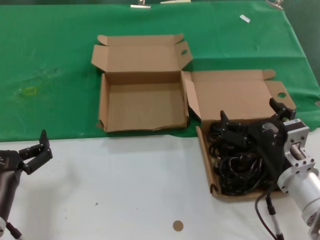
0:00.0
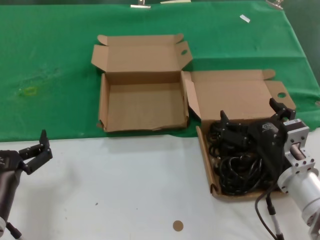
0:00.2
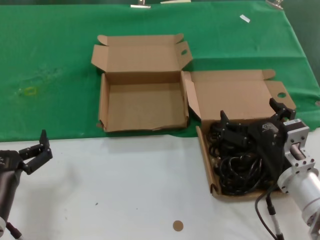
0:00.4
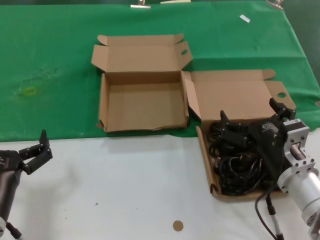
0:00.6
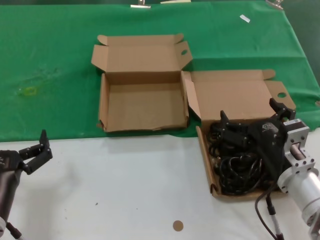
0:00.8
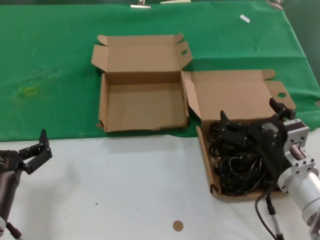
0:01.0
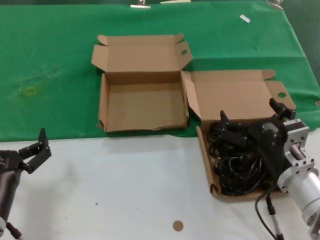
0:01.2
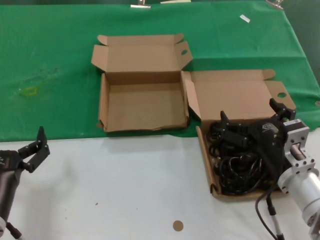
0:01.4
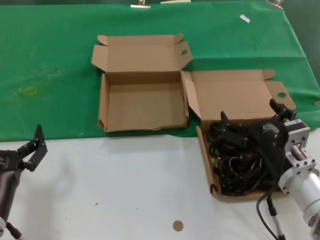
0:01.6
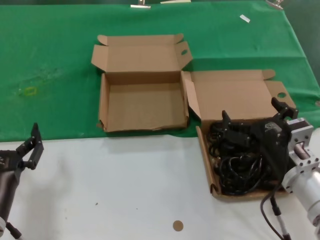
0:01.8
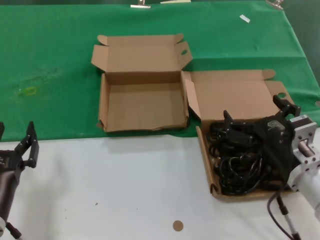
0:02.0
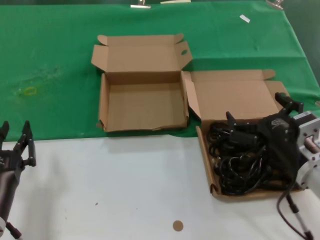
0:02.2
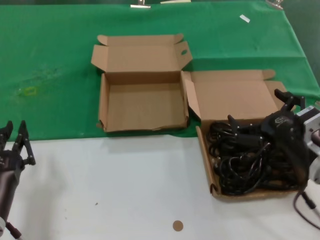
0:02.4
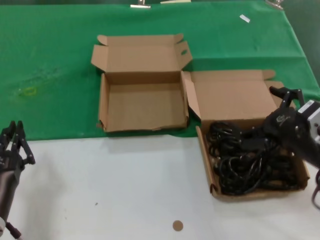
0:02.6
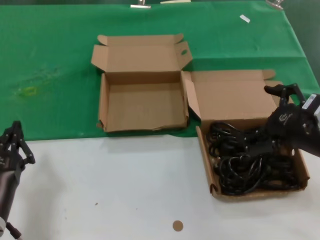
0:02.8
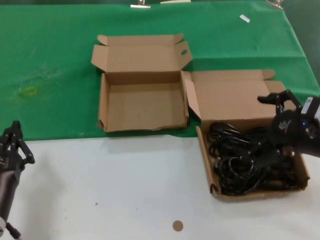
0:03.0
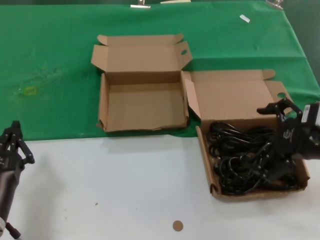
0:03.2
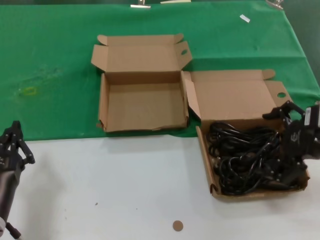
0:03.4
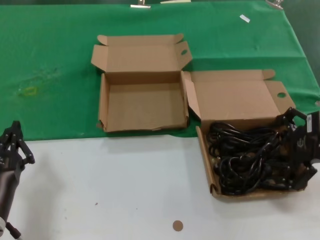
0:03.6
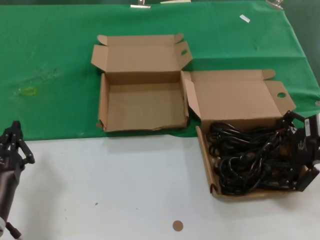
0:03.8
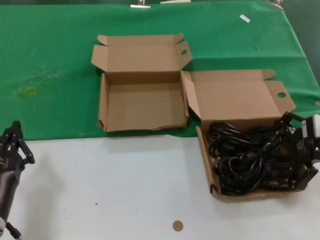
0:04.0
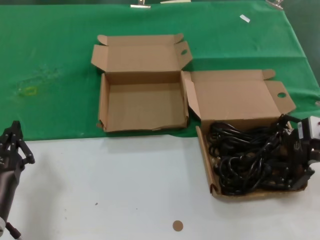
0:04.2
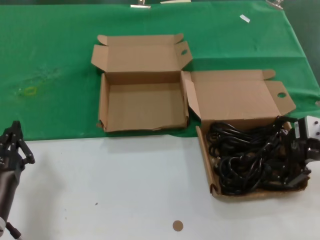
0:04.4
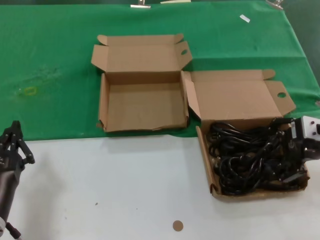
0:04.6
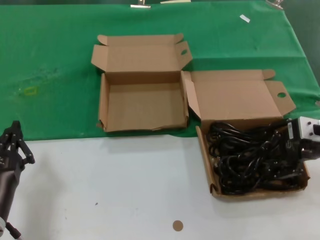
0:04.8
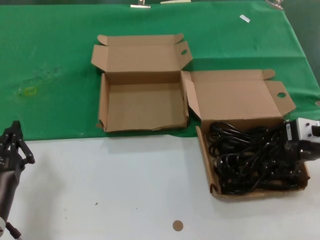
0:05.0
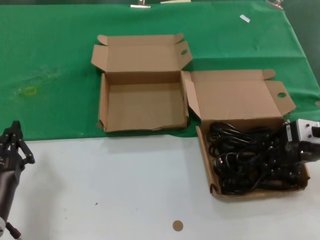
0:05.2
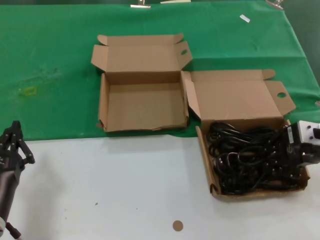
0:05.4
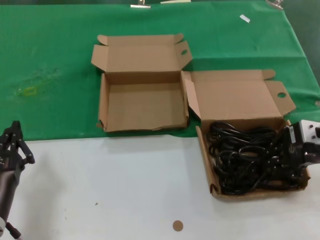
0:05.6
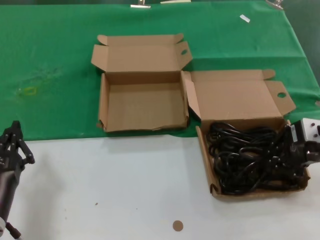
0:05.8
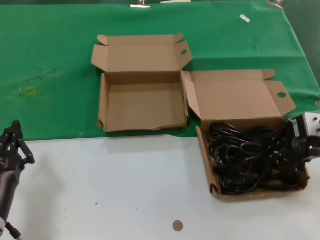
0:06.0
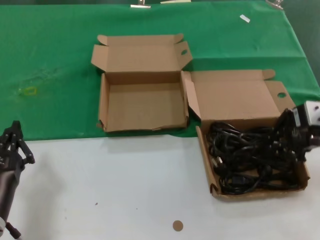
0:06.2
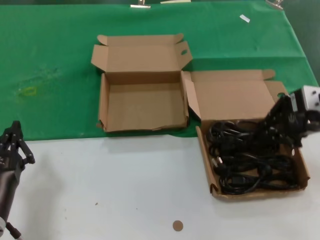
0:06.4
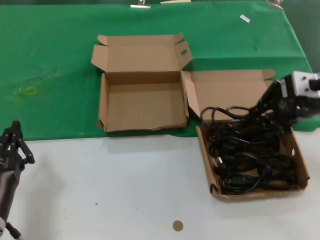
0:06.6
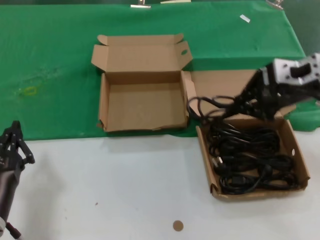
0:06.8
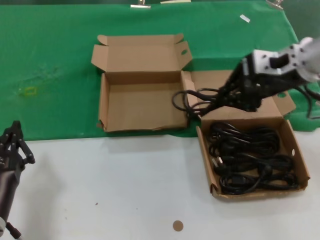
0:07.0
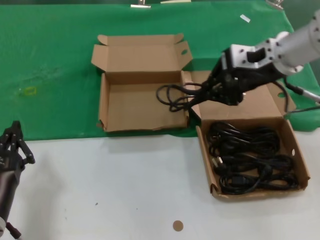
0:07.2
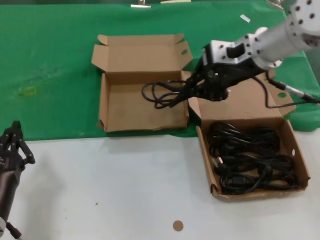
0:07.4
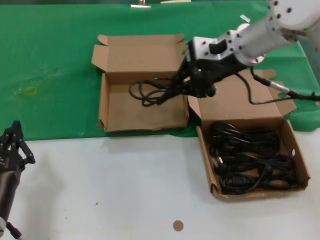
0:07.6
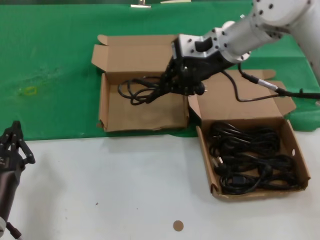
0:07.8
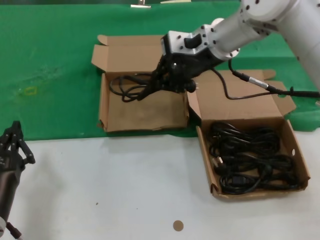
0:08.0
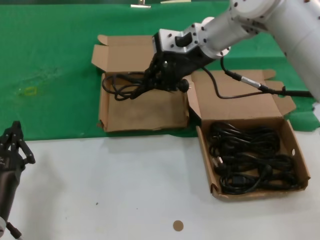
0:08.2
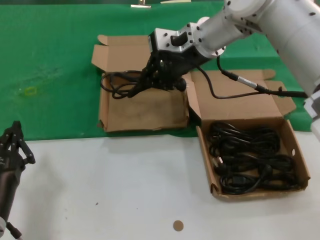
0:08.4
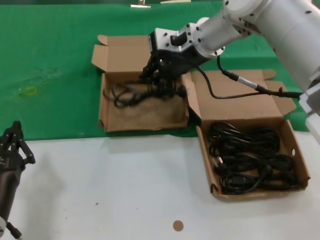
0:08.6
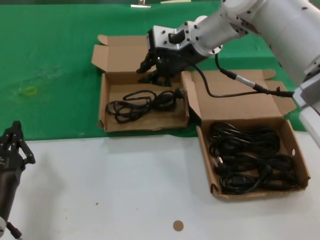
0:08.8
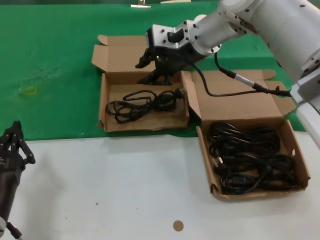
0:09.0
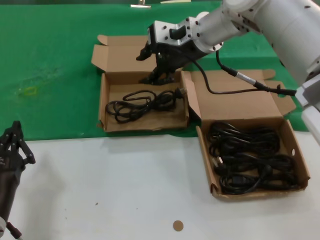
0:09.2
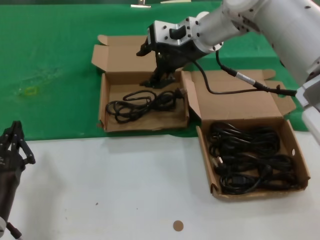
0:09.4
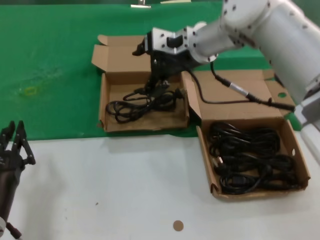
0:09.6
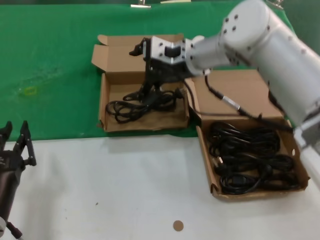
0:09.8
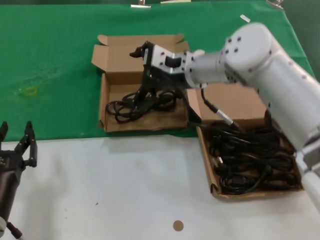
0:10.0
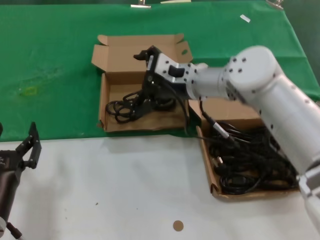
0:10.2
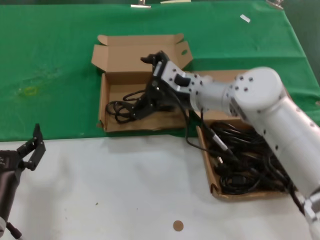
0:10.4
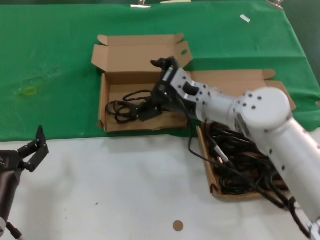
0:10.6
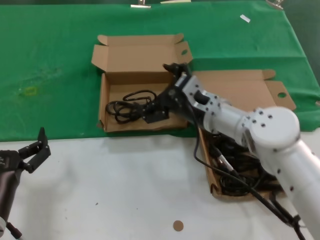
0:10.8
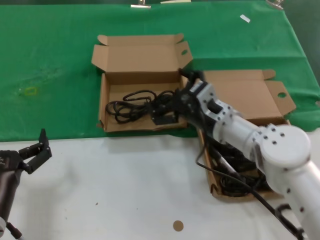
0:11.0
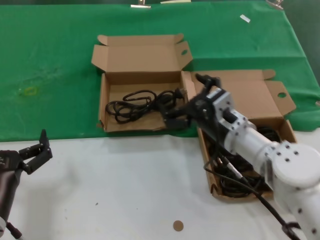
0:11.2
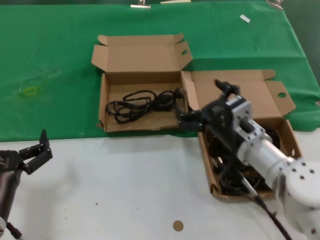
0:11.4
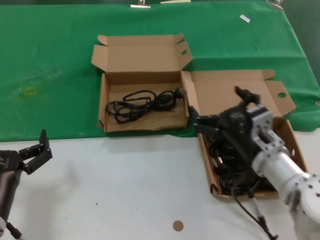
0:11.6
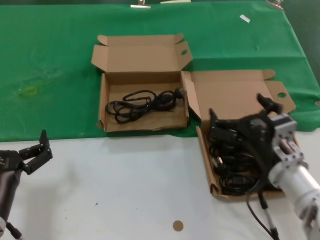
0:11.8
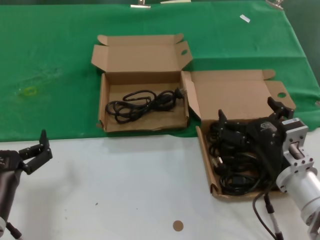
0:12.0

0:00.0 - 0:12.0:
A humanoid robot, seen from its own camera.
Task of the whole recording: take the parts from the box containing them and put them into an empty box.
Step, 0:00.0 - 0:05.6: Grasp the data cable.
Step, 0:05.8 - 0:08.8: Place the data cable in the another box.
0:00.0 - 0:01.6: Both hands stay about where they are.
0:01.6 - 0:03.0: The right hand goes about 15 cm upward and to the right.
0:03.0 - 0:04.4: The right hand moves forward, approximately 5 cm.
0:04.4 - 0:06.0: The hands move only a little.
0:06.0 - 0:07.6: The right hand shifts about 20 cm to the left, forward and upward.
0:07.6 - 0:09.0: The right hand goes approximately 10 cm to the left and forward.
0:09.0 - 0:10.4: The right hand heads downward, covering about 15 cm.
0:10.4 - 0:12.0: The right hand is displaced backward, downward and to the right by some 25 cm.

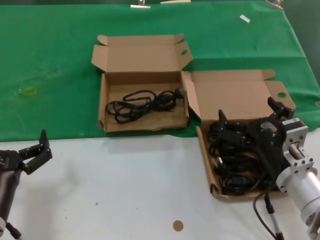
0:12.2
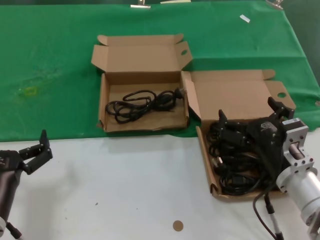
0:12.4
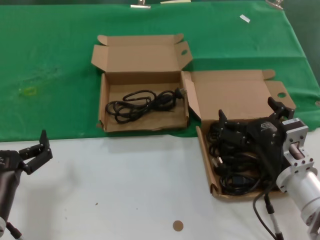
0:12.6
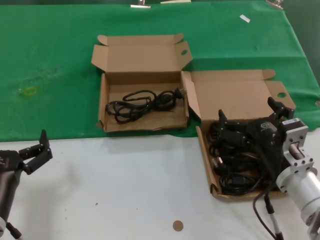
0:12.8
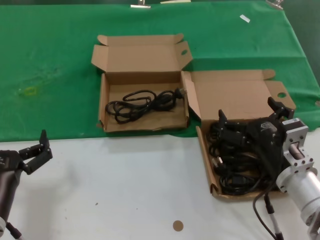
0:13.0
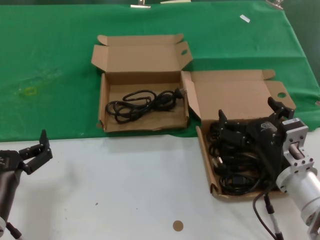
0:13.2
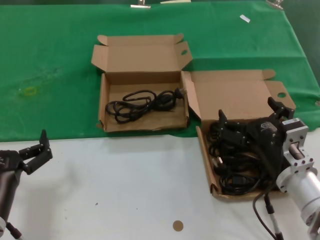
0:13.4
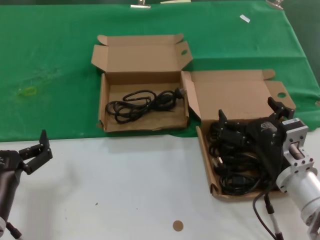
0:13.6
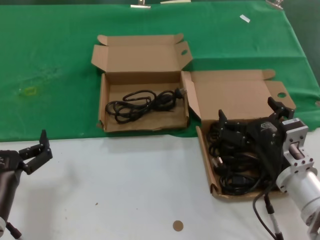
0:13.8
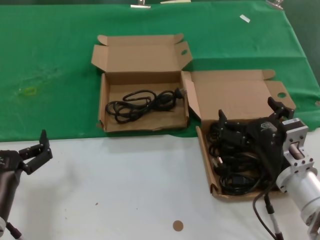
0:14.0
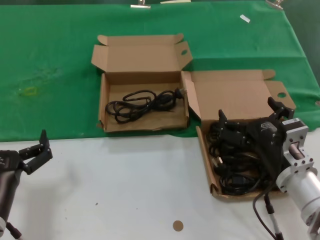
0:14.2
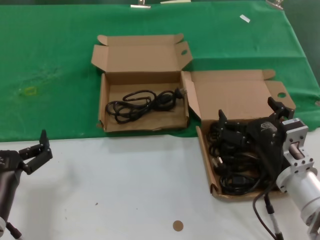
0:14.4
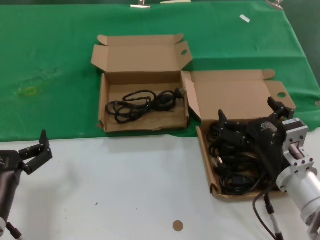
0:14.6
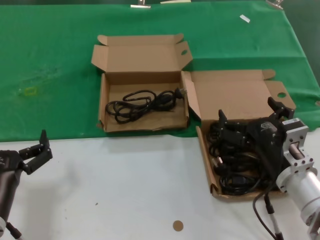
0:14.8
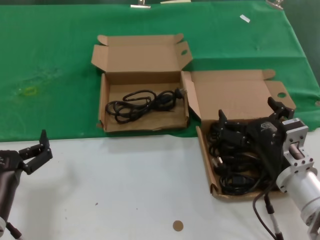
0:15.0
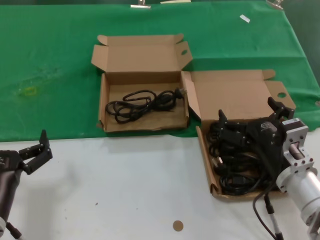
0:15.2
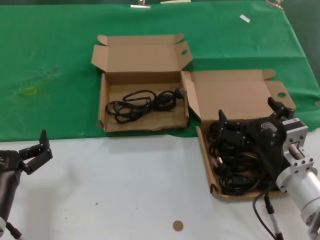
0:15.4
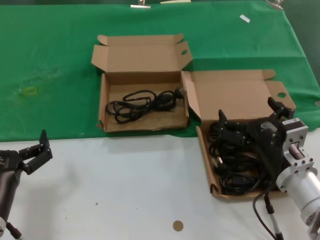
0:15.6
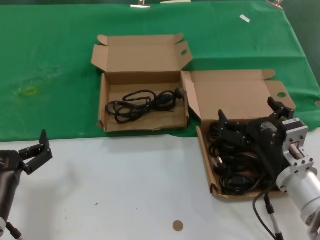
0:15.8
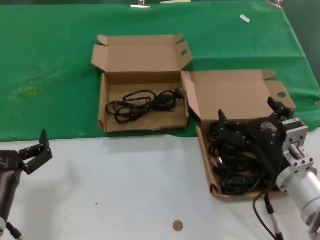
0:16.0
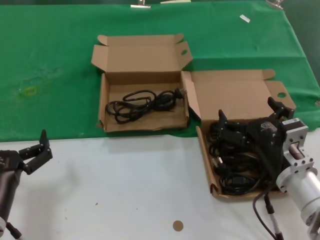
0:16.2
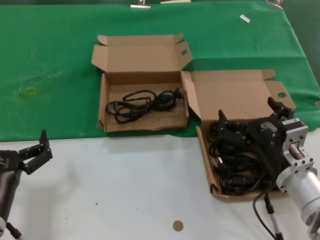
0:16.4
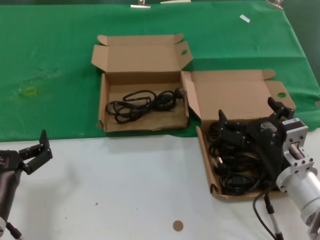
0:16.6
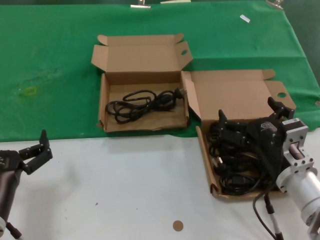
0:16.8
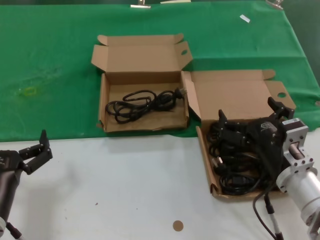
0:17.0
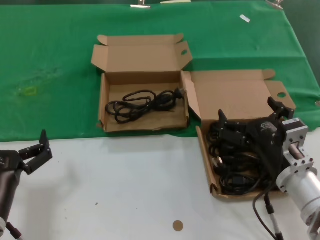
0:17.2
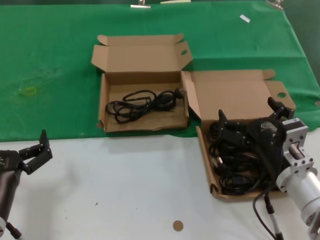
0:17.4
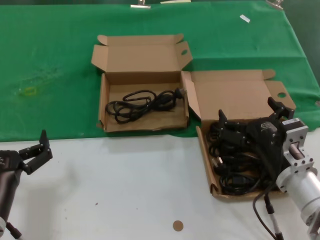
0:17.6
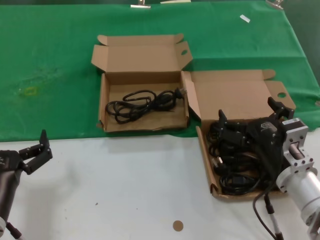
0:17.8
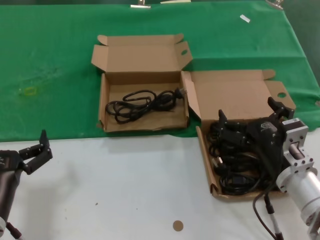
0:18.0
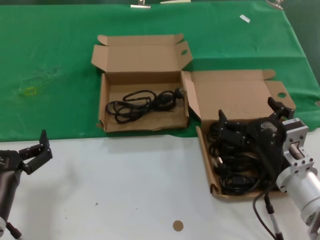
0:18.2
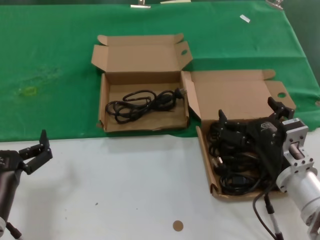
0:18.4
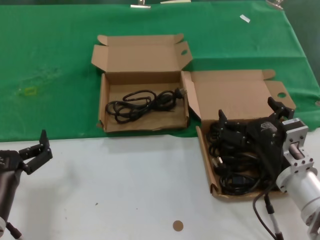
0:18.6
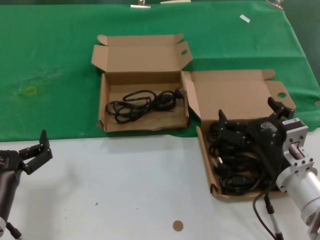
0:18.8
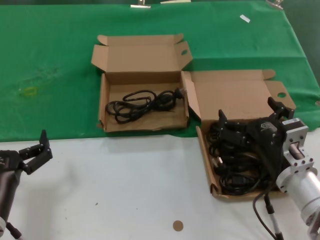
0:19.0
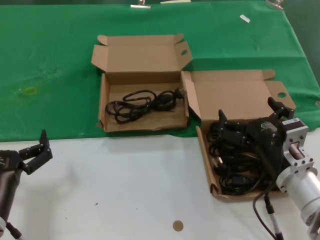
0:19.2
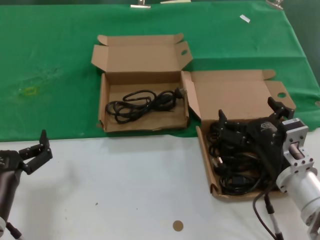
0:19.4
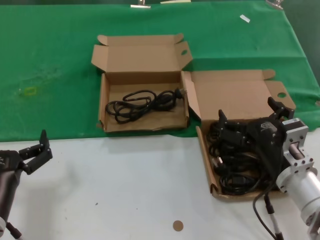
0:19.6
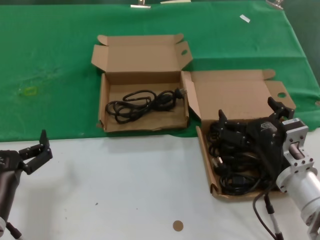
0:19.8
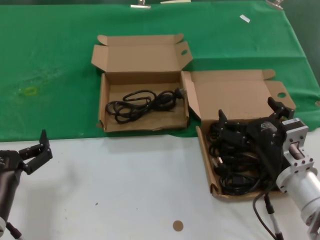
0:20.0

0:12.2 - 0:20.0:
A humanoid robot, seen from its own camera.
Task of the whole recording: take the parts from the box containing them and put them into an empty box.
0:12.2 - 0:20.0: Neither hand changes place.

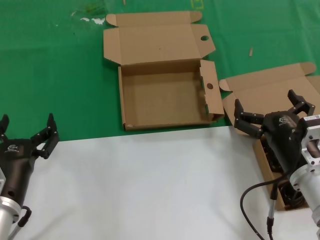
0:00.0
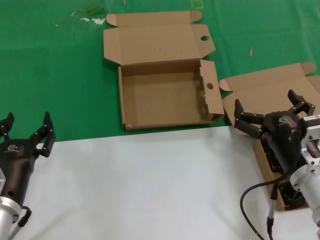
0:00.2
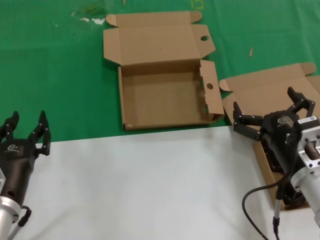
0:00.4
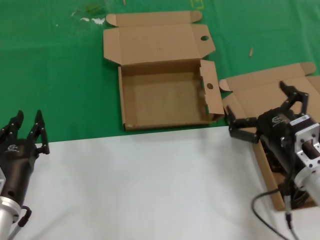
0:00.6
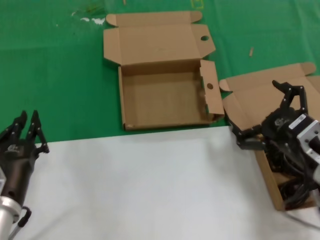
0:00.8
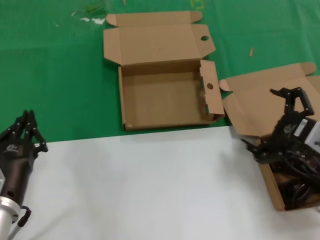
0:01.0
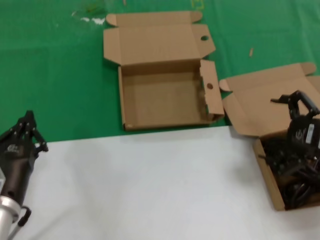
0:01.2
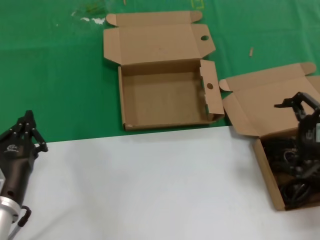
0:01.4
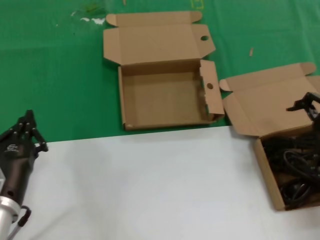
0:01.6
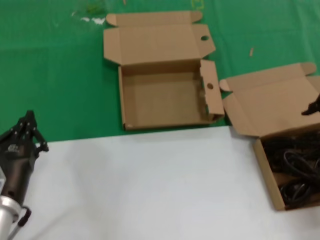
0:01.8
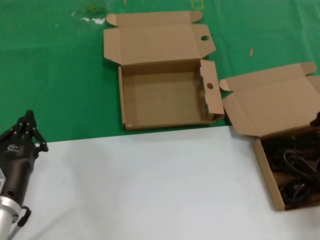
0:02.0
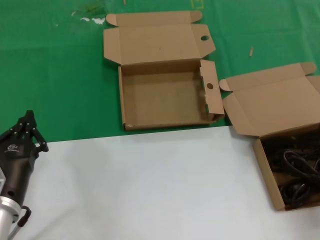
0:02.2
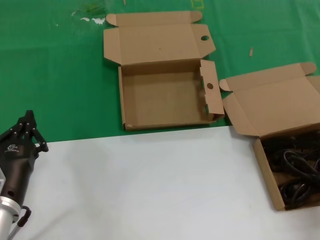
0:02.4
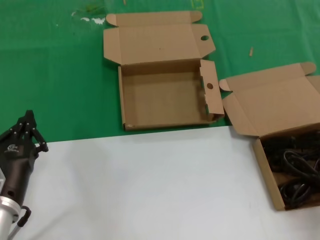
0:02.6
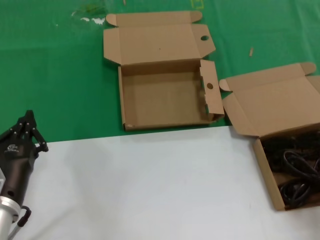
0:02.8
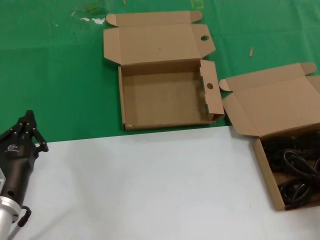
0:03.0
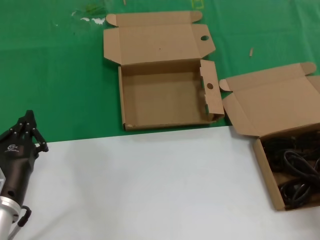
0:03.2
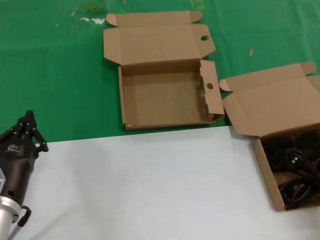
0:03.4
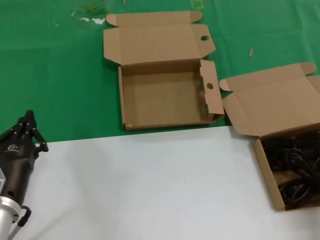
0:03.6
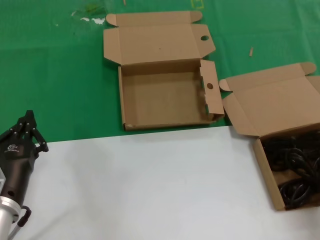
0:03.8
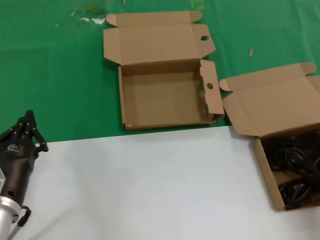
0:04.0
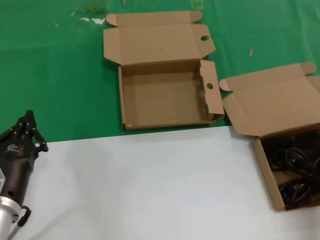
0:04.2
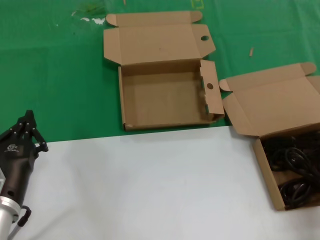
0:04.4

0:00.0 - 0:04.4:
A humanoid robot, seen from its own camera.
Task of the whole recording: take the parts from the box containing them and put them into an empty box.
0:00.0 - 0:01.4: The right hand shifts about 20 cm upward and to the right.
0:01.4 - 0:03.0: The right hand ends up roughly 10 cm from where it was.
